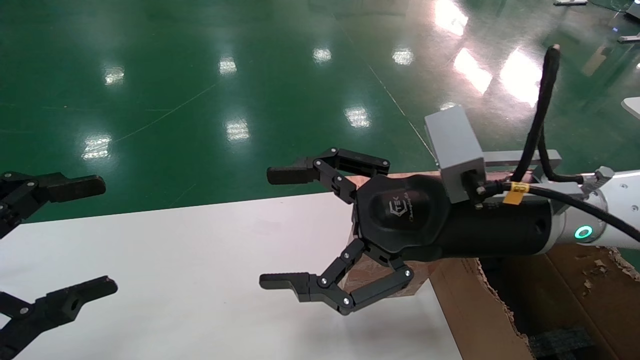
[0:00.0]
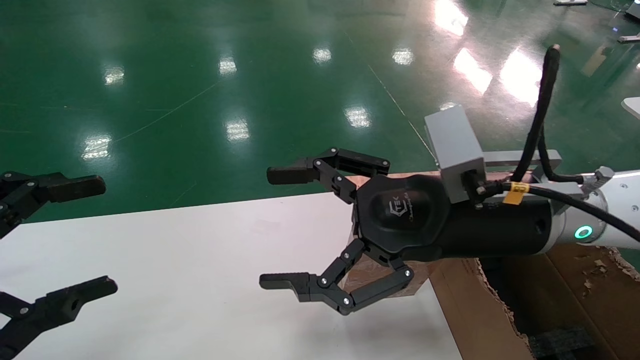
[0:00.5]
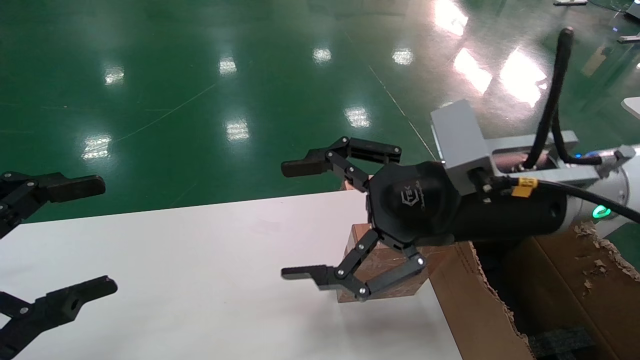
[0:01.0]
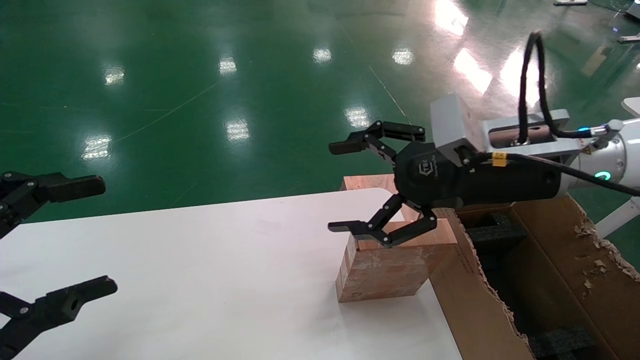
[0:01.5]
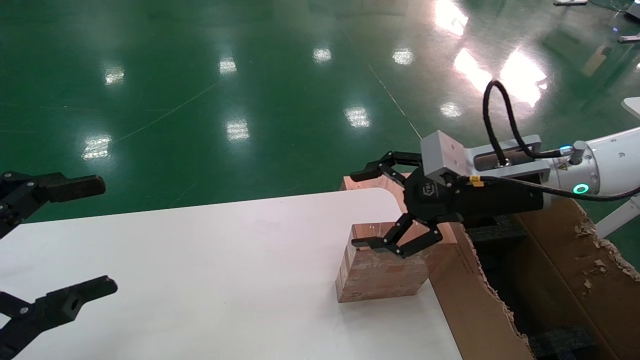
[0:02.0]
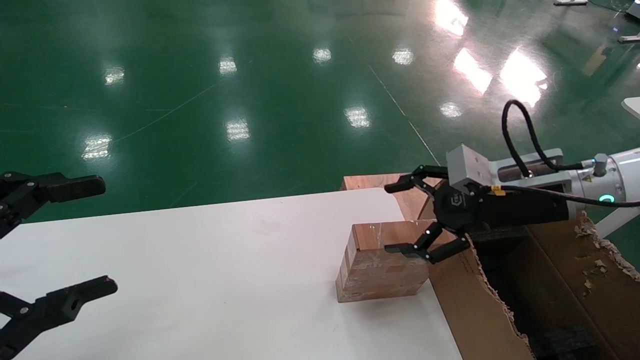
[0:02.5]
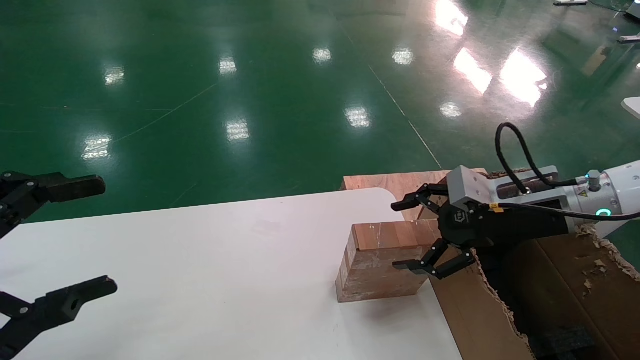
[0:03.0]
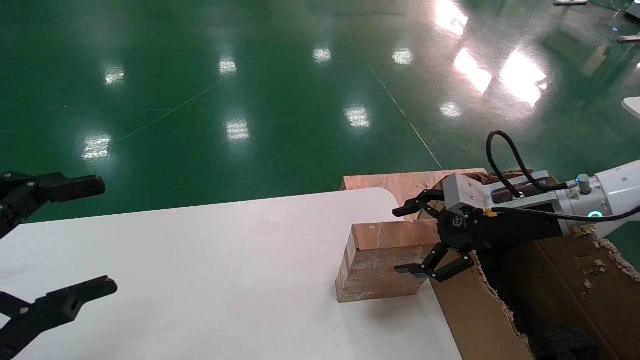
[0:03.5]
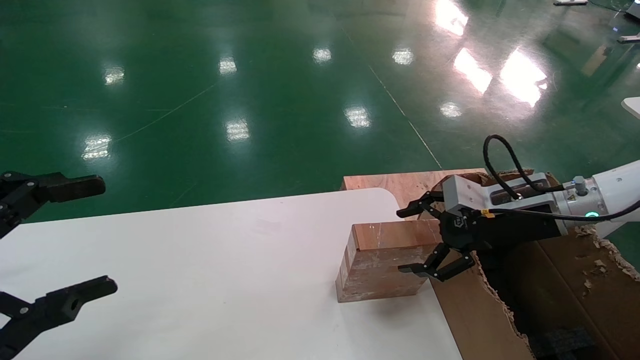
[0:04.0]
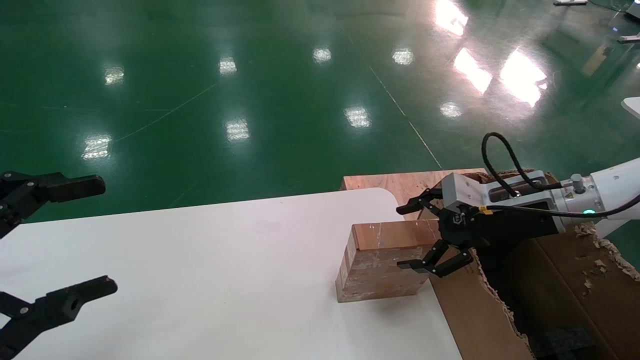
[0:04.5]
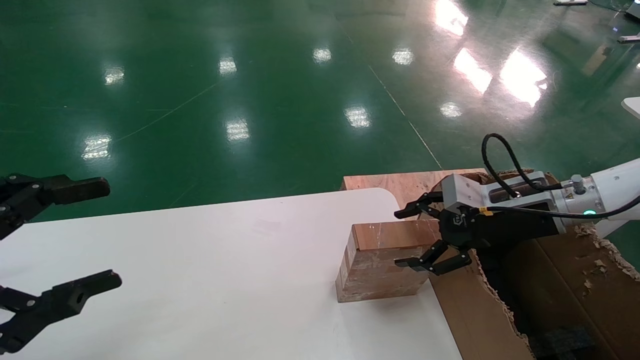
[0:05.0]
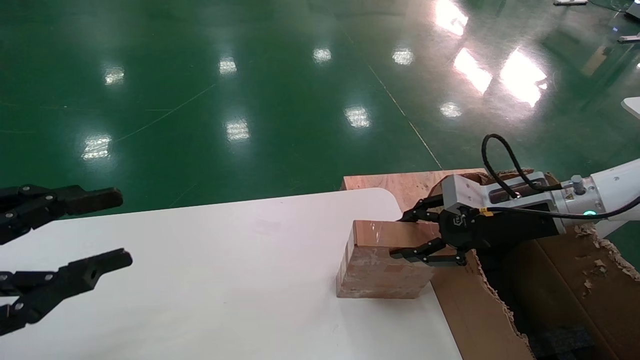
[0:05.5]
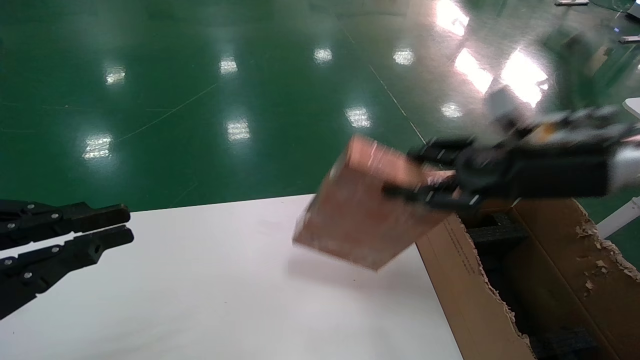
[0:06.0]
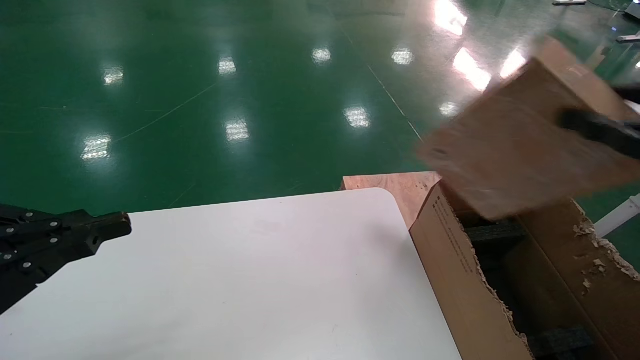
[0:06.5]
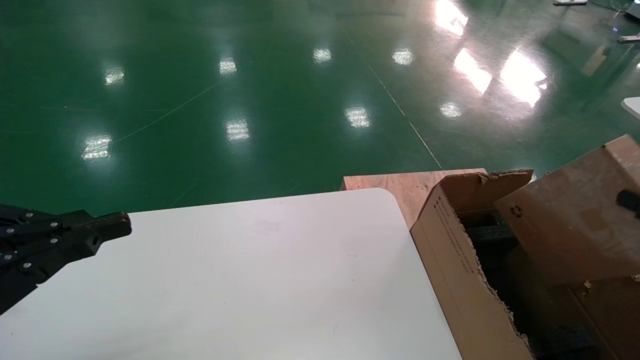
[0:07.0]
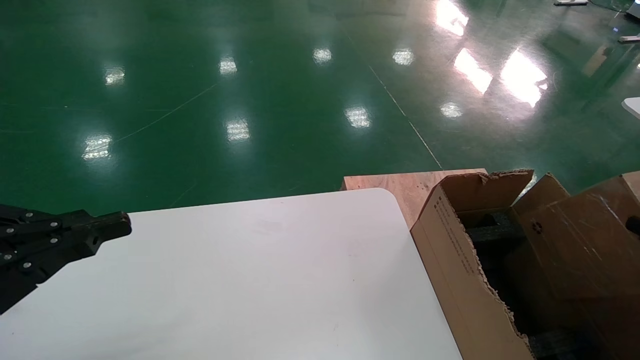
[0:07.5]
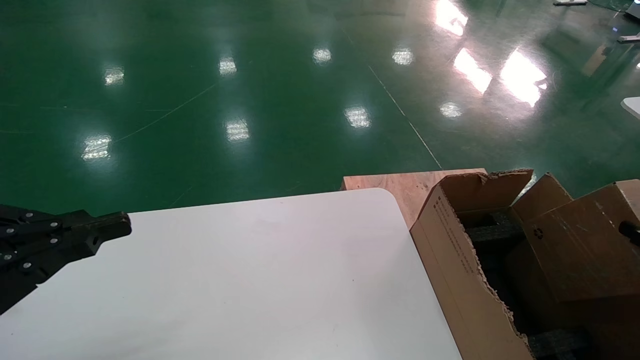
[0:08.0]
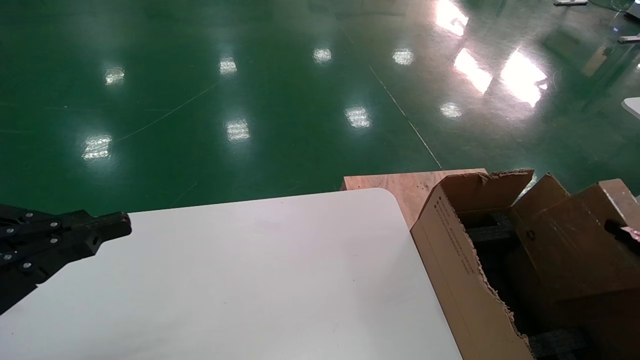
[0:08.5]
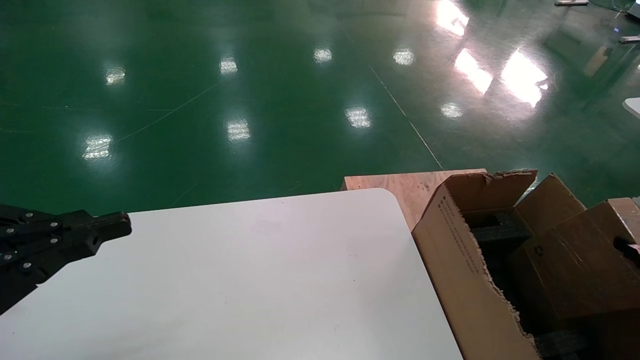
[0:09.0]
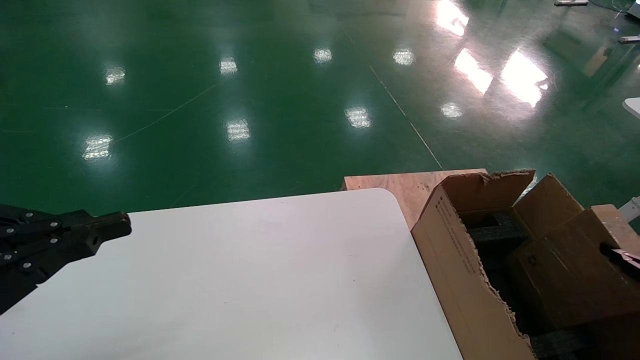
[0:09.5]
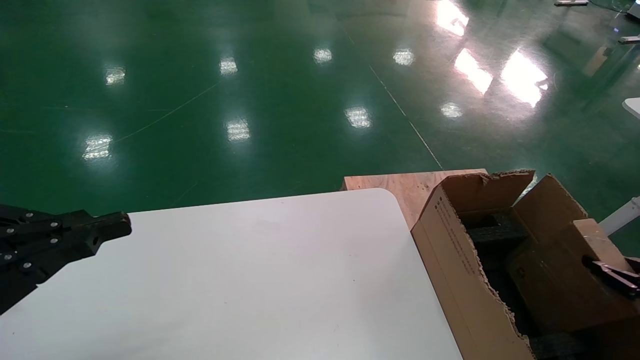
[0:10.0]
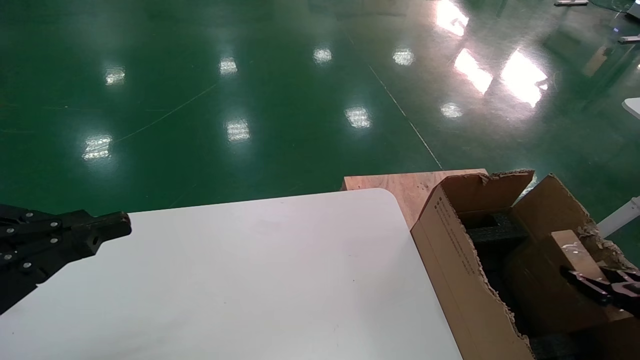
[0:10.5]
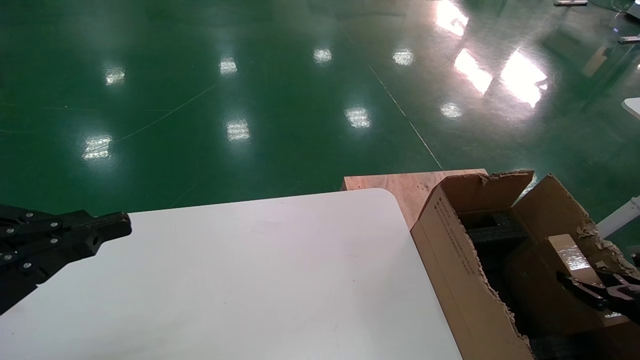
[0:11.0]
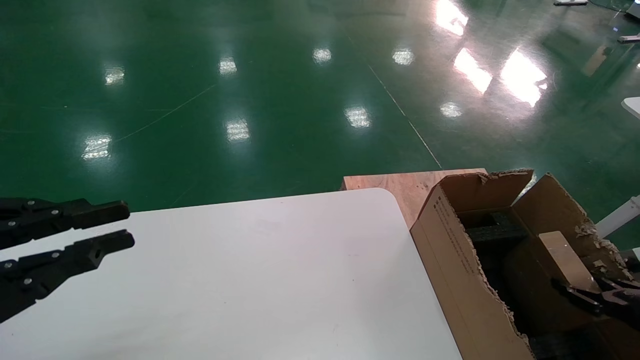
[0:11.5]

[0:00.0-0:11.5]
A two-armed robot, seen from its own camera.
Task of the whole recording: put the box on the table into the big box.
Step, 0:01.5 to 0:05.5: Pick up the mouse and the power cord paper box.
0:00.0 to 0:02.0: The right gripper goes some 10 cm to the right and forward.
0:02.0 to 0:04.0: The right gripper shifts approximately 10 cm to the right and downward.
0:04.0 to 0:06.0: The right gripper travels upward and backward by approximately 10 cm, and closes; the left gripper closes up.
0:06.0 to 0:07.5: The right gripper heads backward, to the right and downward, covering roughly 30 cm.
0:07.5 to 0:09.5: The right gripper heads downward, covering some 5 cm.
0:09.5 to 0:11.5: The right gripper shifts some 10 cm downward and forward.

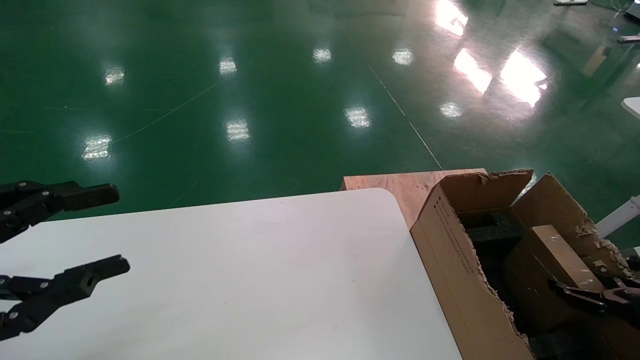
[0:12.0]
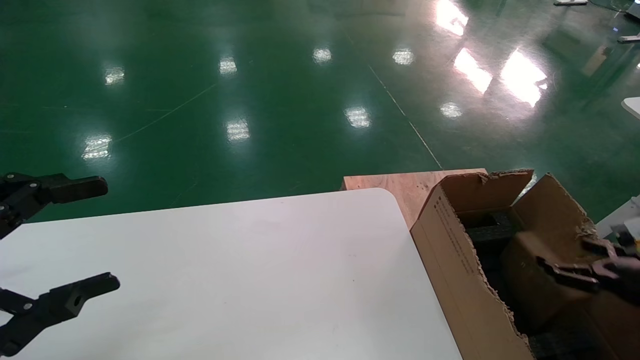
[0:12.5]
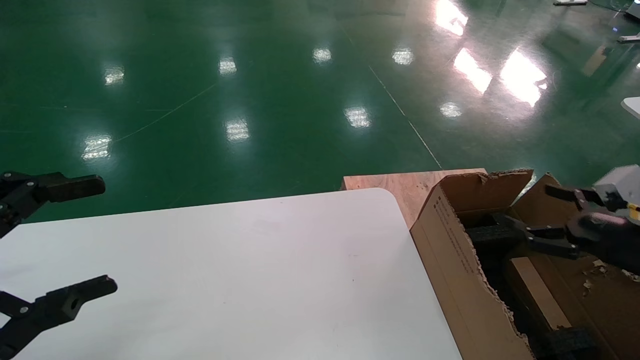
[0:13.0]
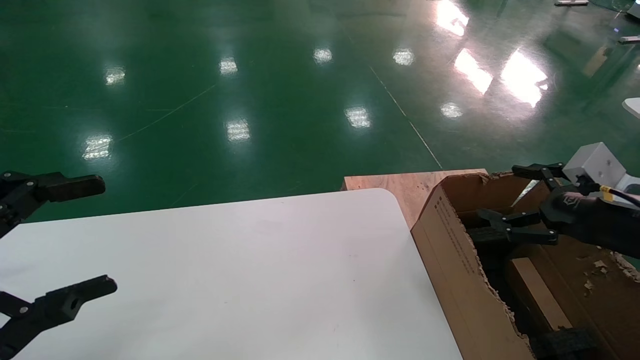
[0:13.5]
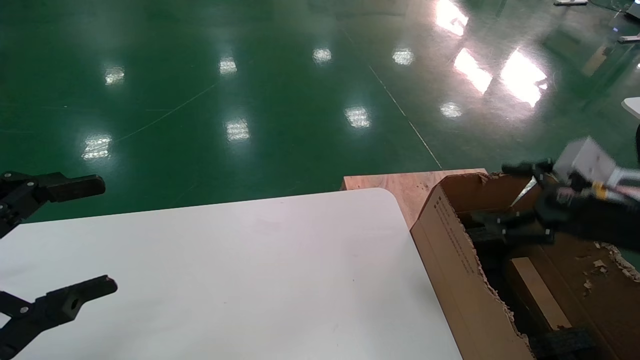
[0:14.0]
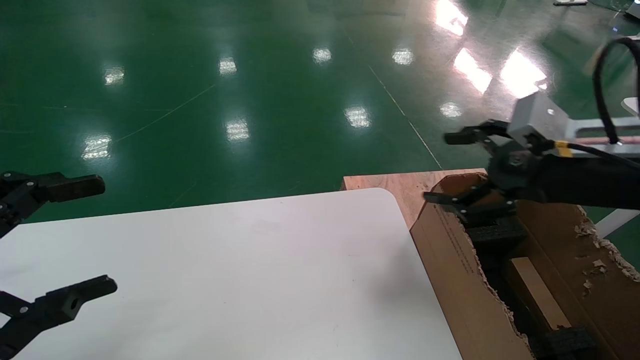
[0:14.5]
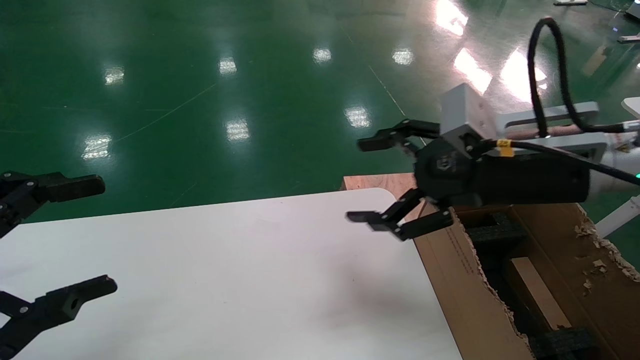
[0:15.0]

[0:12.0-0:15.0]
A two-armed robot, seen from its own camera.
Task of the whole recording: put the box on the table into the big box.
0:12.0 to 0:13.5: The left gripper opens up. The right gripper moves upward and to the left, roughly 20 cm, and opens its fingers.
0:13.5 to 0:15.0: The right gripper moves to the left and upward, about 20 cm.
